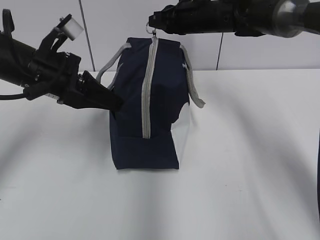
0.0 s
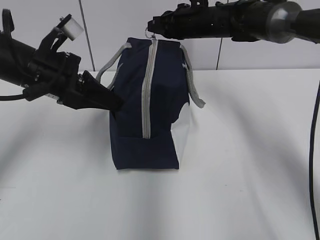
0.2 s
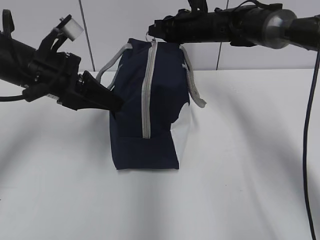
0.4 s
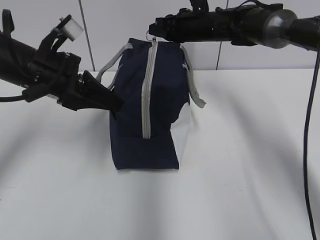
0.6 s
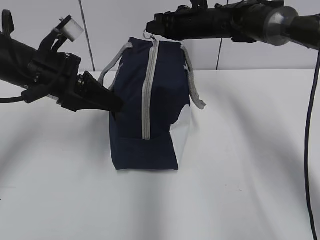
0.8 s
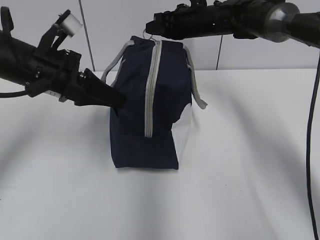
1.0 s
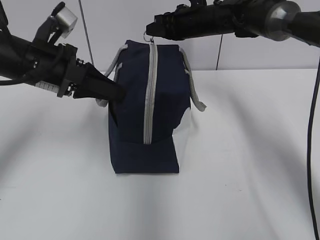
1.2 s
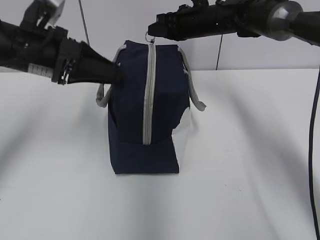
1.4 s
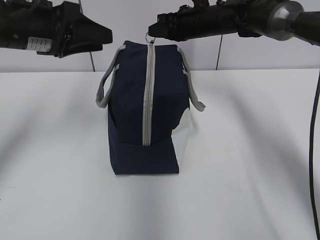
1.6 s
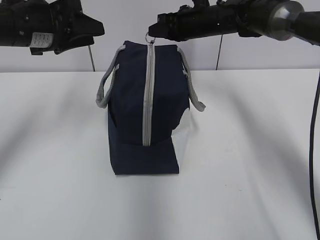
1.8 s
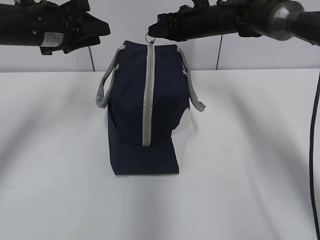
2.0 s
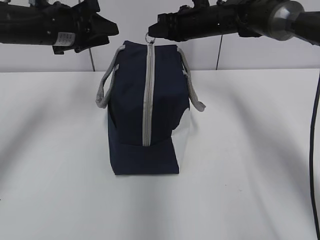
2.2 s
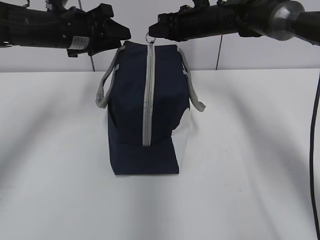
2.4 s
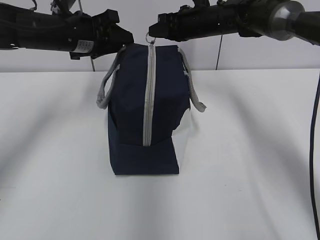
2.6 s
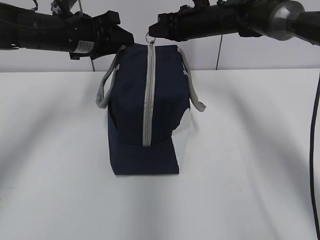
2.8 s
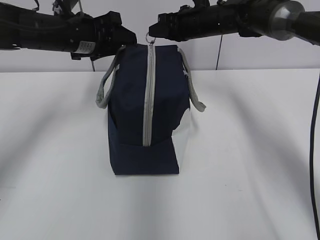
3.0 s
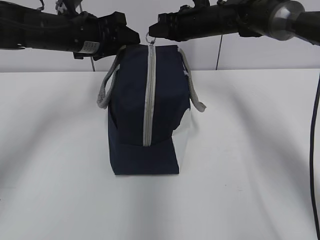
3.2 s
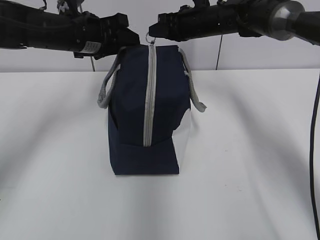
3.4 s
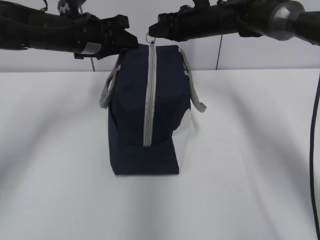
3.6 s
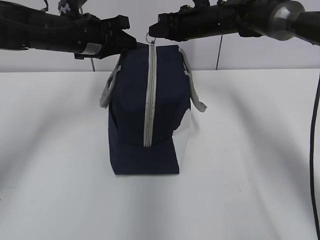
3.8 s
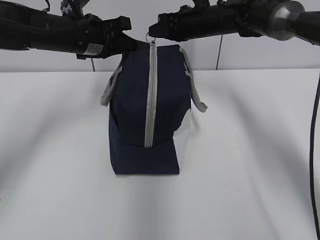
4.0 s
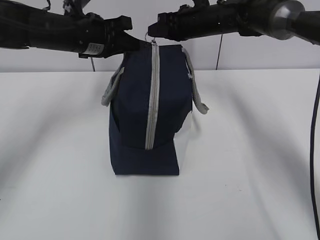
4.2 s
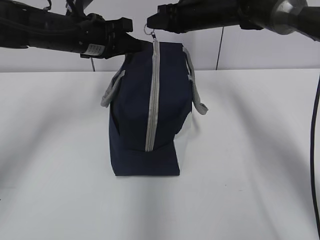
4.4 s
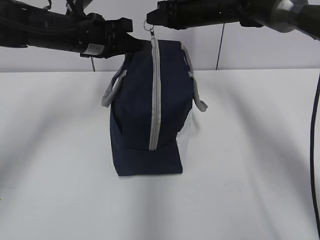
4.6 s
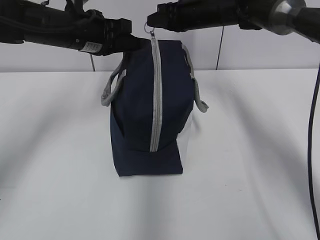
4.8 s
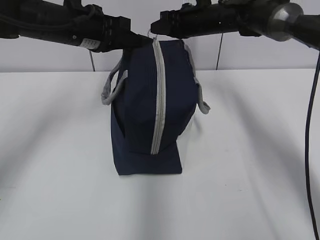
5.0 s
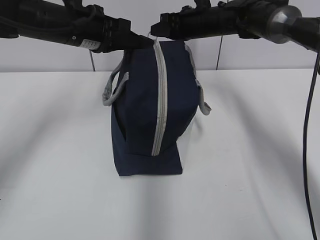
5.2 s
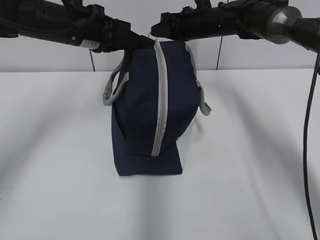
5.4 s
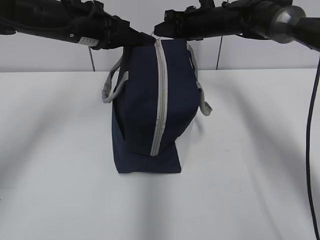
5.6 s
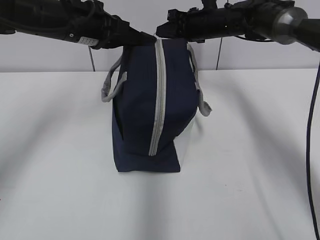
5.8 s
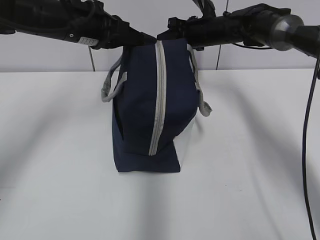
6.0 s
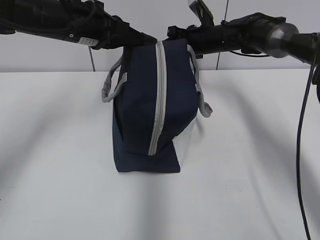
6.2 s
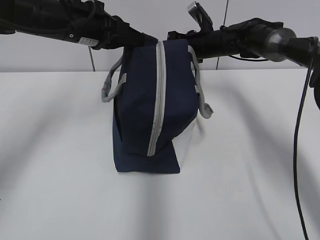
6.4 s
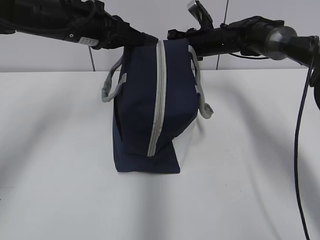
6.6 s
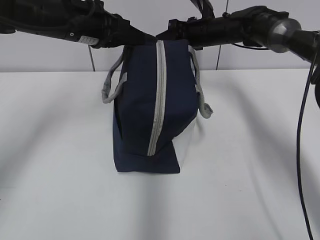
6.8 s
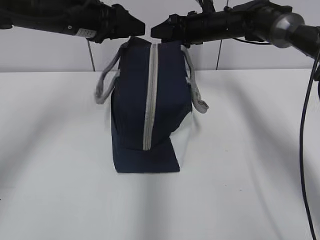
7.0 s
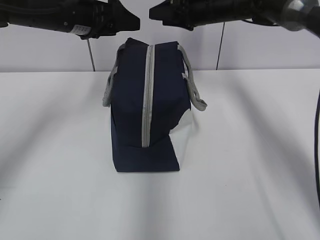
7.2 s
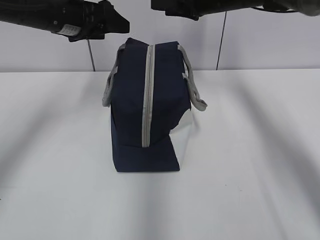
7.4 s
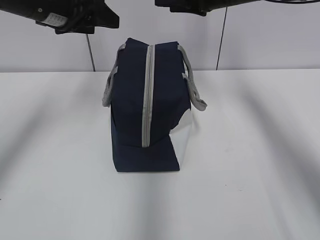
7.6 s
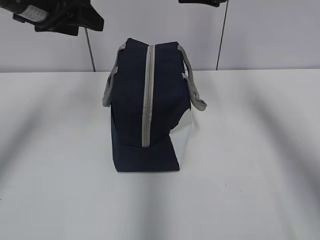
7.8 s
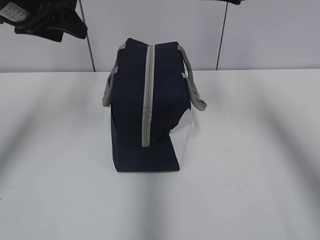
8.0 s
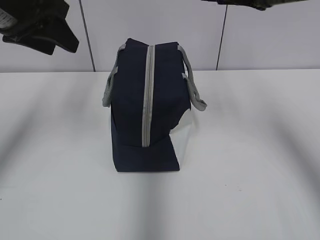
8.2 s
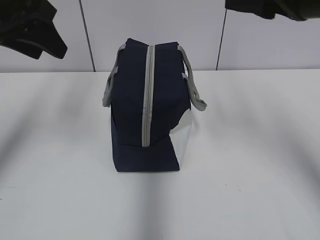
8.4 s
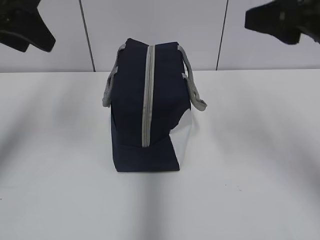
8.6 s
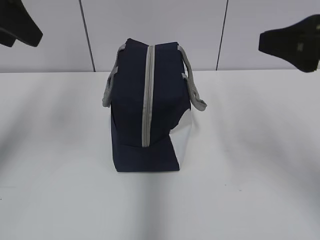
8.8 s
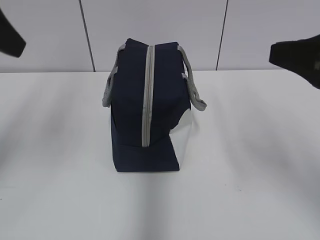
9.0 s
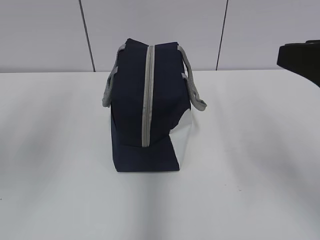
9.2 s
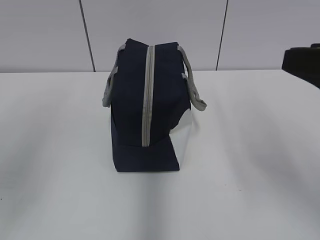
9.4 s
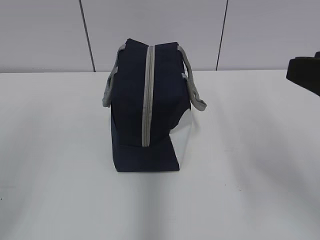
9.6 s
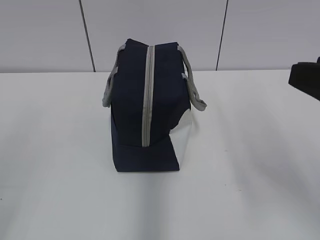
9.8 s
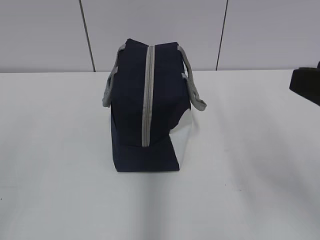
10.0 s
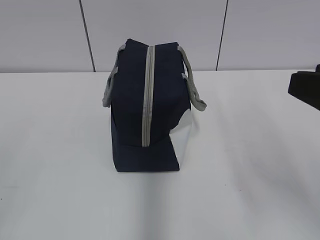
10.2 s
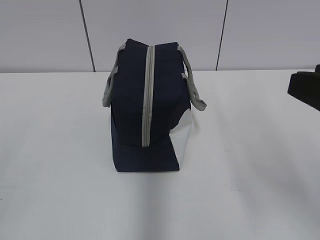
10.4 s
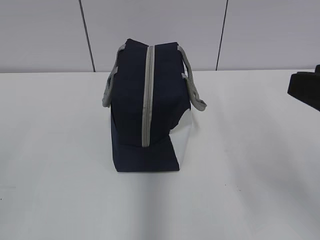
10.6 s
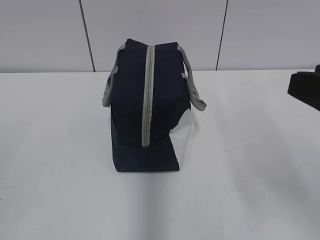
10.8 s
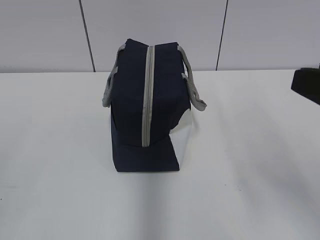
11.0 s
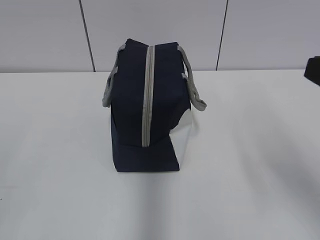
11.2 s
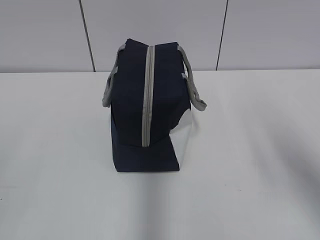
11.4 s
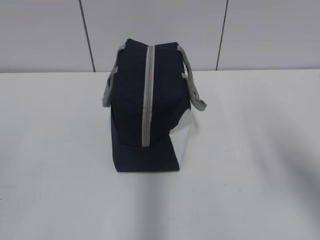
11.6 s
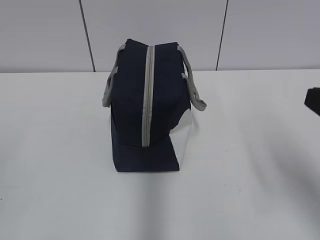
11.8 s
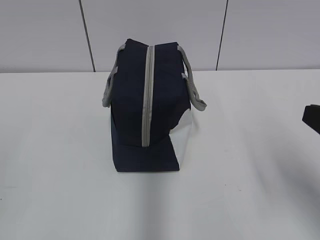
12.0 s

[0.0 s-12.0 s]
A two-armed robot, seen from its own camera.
0.0 to 1.6 s: The left gripper shifts some 5 cm upward, and opens up.
1.6 to 3.0 s: The left gripper is displaced forward by some 10 cm.
3.0 to 4.4 s: The left gripper closes up.
4.4 to 6.0 s: The right gripper moves approximately 5 cm.
6.0 to 7.6 s: The left gripper changes place by roughly 5 cm, and opens its fingers. The right gripper travels upward and backward by about 15 cm, and opens its fingers.
7.6 to 9.0 s: The right gripper heads backward, covering some 30 cm. The left gripper moves backward and upward, roughly 15 cm.
9.0 to 10.4 s: The right gripper is displaced backward by roughly 5 cm, while the left gripper travels backward and downward by roughly 25 cm.
10.4 to 12.0 s: The right gripper ends up some 5 cm from where it was.

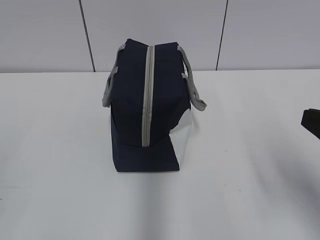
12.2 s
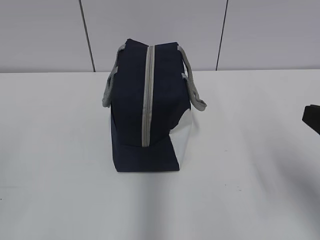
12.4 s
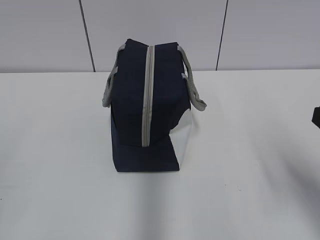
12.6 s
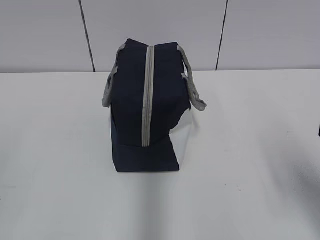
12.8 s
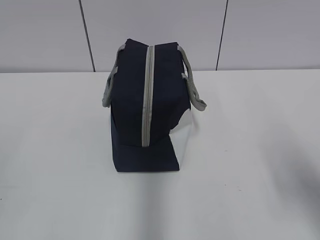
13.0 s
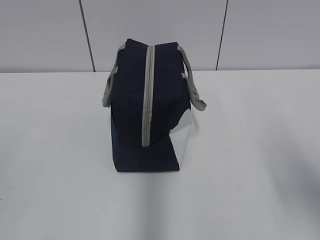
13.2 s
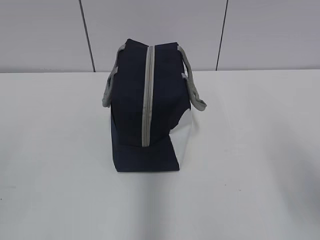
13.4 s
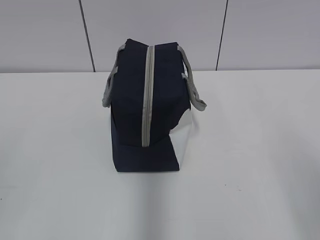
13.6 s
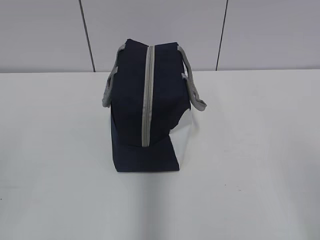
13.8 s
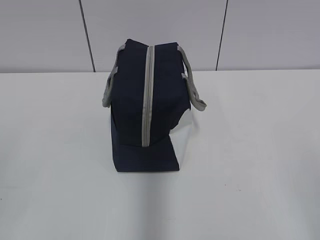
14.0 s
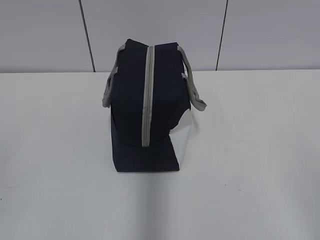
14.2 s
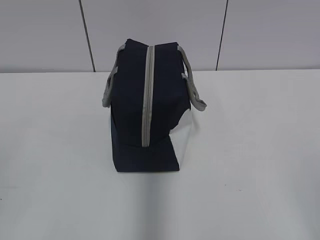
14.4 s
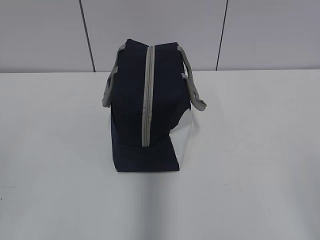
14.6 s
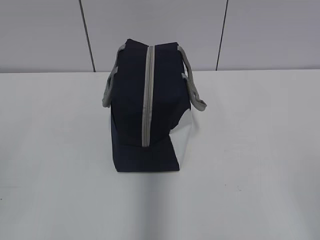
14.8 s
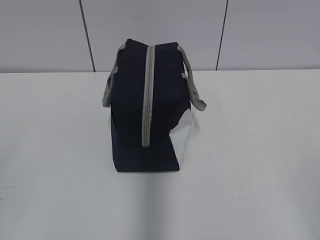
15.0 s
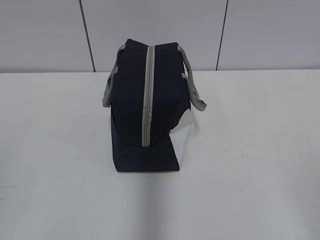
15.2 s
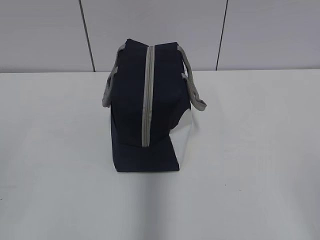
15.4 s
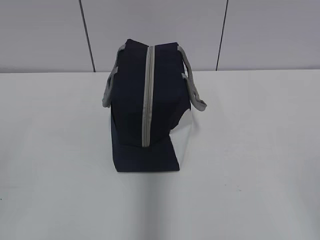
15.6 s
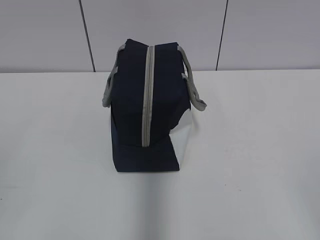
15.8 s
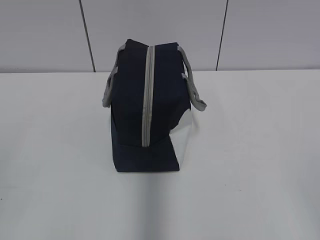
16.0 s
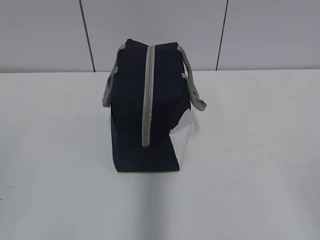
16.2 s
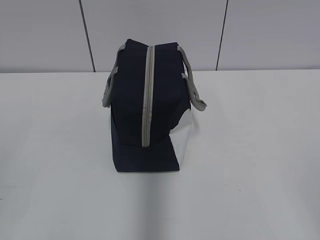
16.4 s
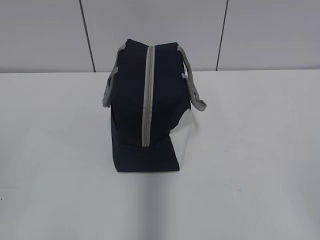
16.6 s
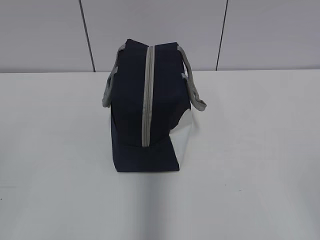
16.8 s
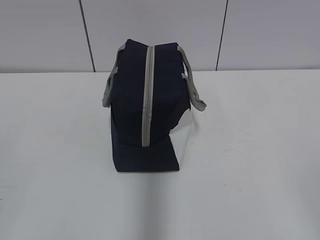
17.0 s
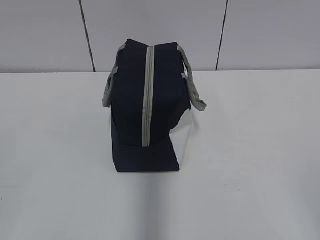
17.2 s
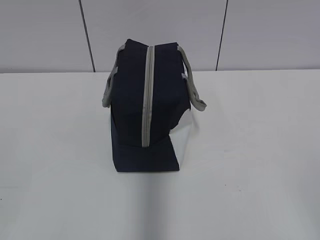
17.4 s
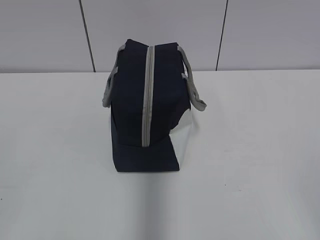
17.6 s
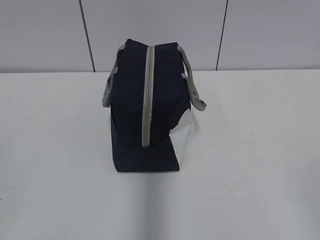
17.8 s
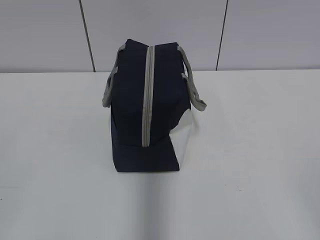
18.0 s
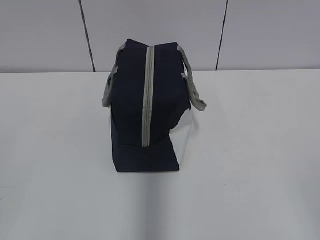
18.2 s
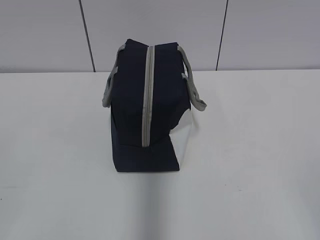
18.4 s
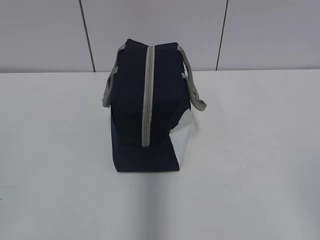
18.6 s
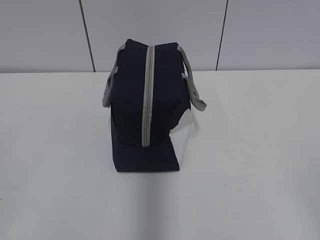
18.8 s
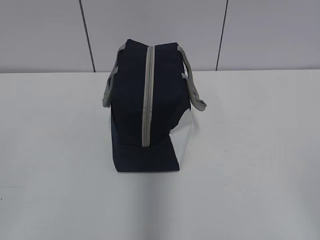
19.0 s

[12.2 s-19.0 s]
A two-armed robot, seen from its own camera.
12.2 to 13.6 s: The right gripper moves backward, approximately 5 cm.
17.6 to 19.0 s: Neither gripper changes place.

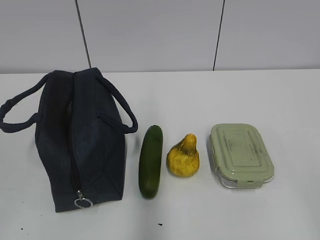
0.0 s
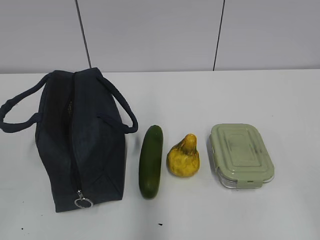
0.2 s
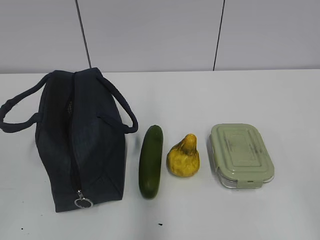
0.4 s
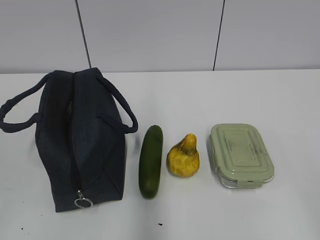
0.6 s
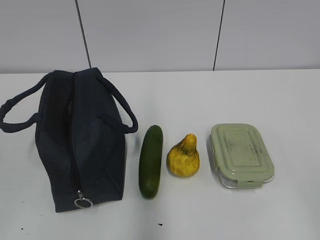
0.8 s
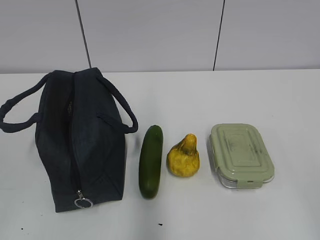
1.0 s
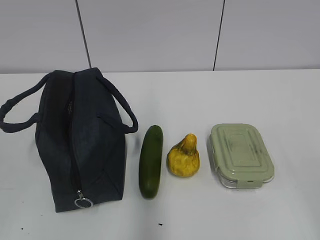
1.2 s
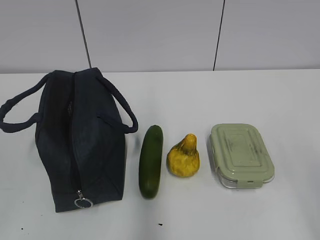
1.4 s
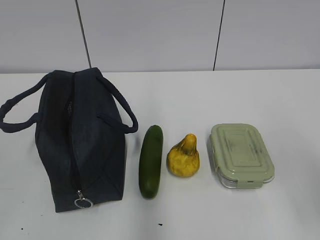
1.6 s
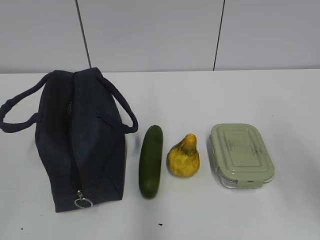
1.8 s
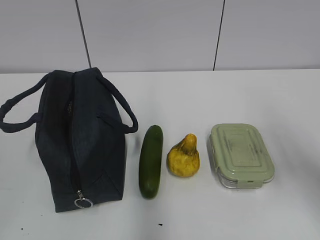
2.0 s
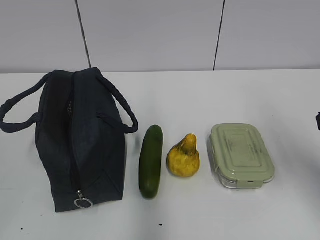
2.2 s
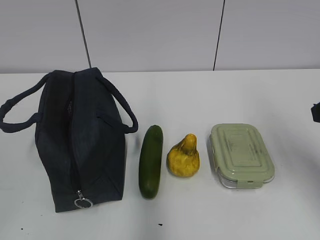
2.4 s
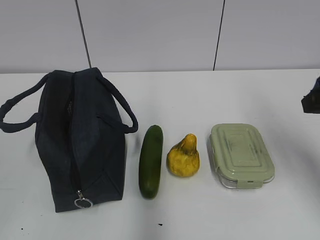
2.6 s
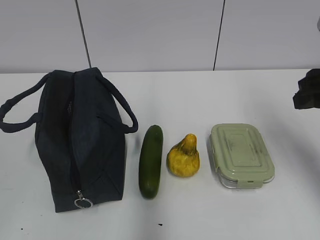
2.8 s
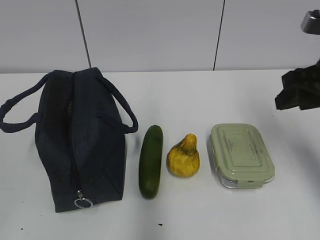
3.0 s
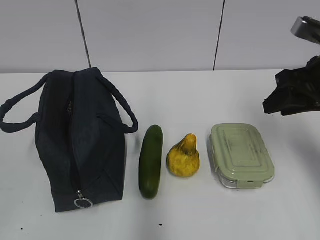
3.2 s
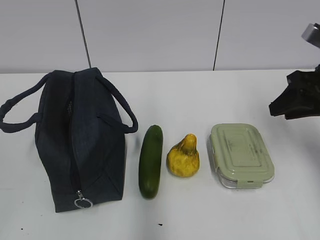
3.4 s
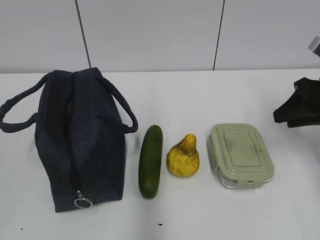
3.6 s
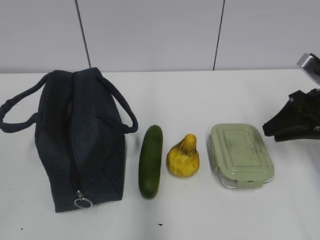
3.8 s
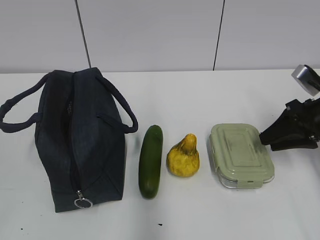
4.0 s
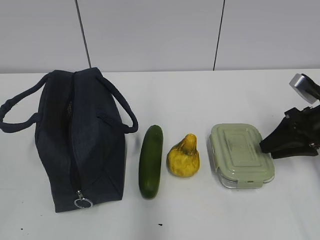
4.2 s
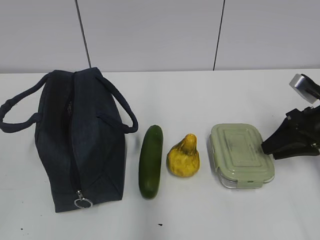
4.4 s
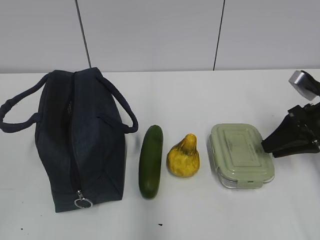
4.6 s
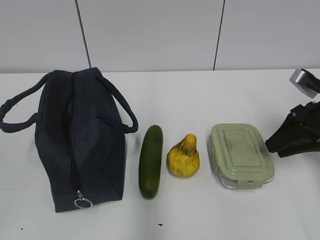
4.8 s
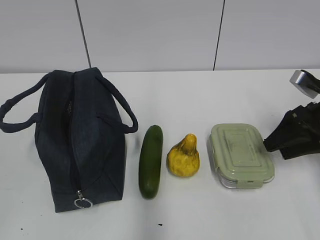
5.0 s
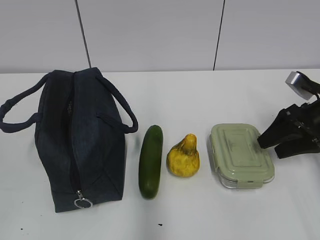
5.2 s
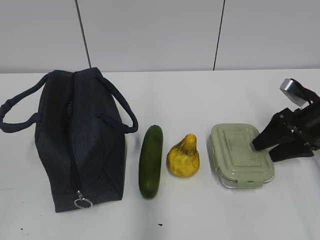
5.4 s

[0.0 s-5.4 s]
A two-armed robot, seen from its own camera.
1.4 to 2.8 s: The right gripper shifts about 20 cm forward.
2.8 to 4.0 s: The right gripper shifts roughly 15 cm downward and forward.
4.0 to 5.4 s: The right gripper opens.
